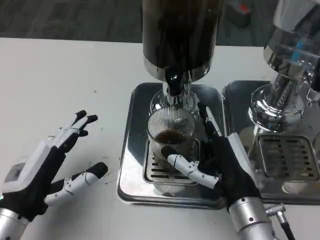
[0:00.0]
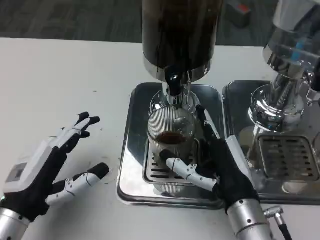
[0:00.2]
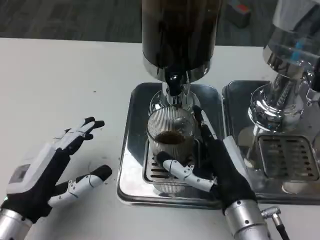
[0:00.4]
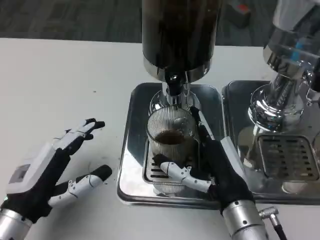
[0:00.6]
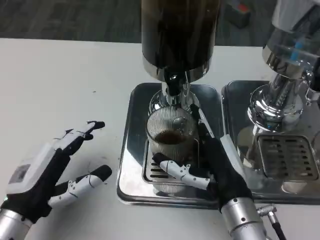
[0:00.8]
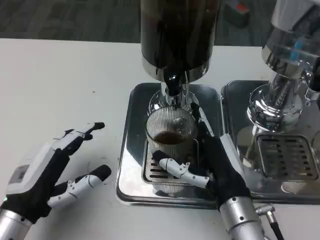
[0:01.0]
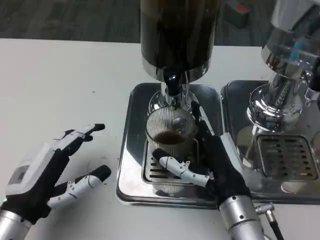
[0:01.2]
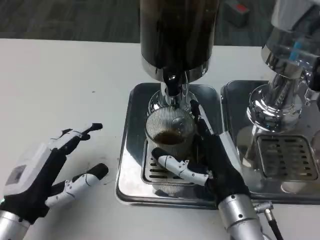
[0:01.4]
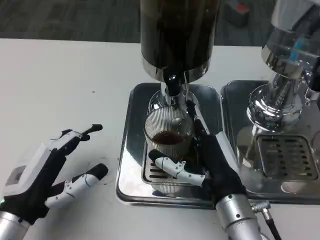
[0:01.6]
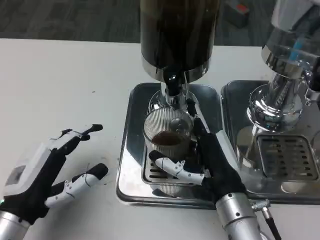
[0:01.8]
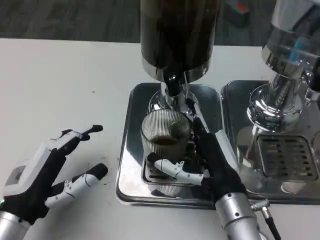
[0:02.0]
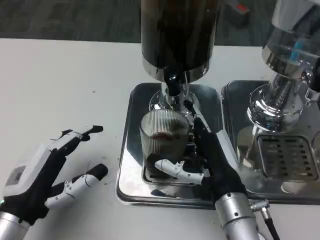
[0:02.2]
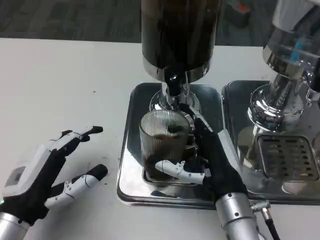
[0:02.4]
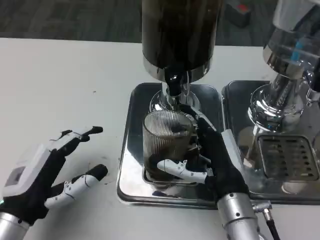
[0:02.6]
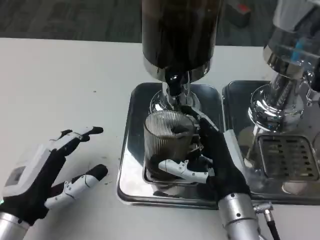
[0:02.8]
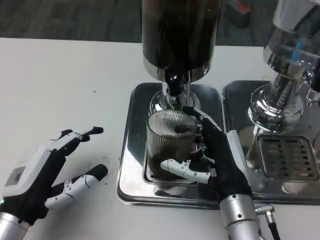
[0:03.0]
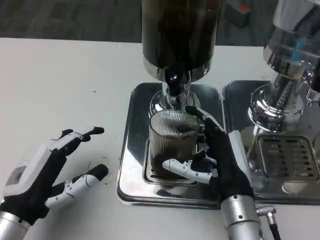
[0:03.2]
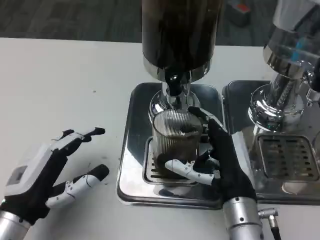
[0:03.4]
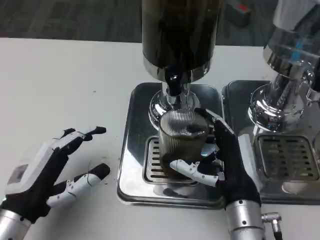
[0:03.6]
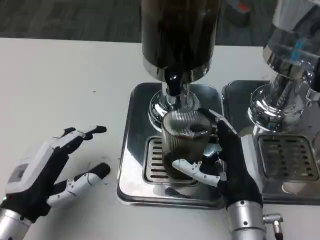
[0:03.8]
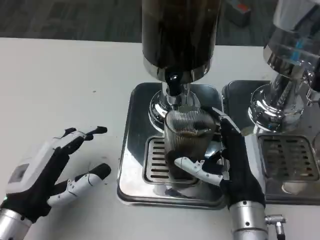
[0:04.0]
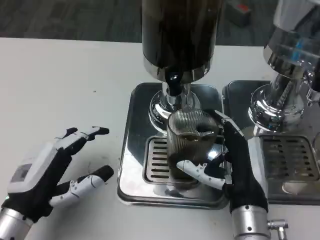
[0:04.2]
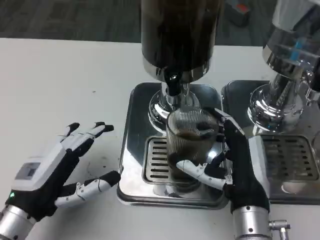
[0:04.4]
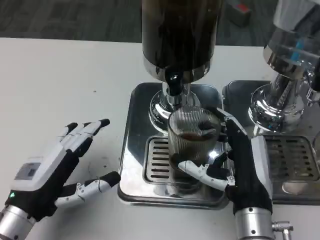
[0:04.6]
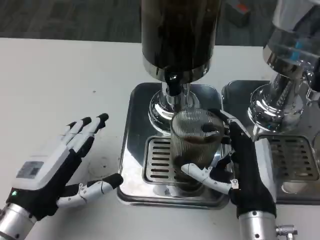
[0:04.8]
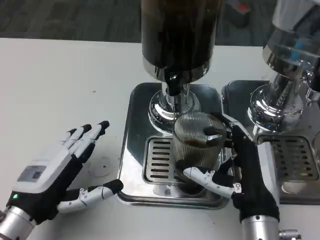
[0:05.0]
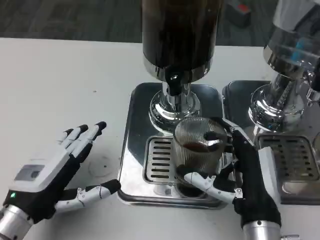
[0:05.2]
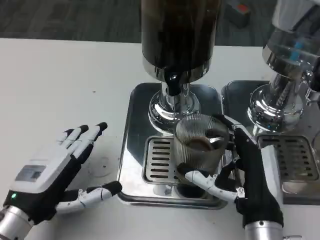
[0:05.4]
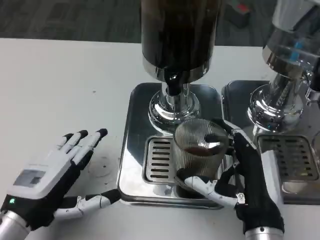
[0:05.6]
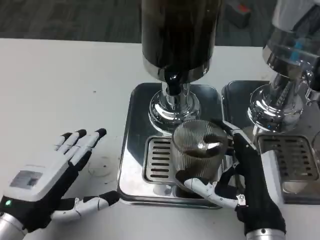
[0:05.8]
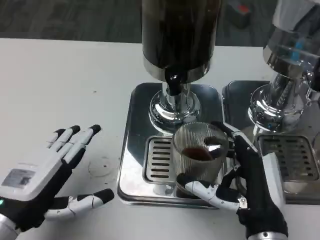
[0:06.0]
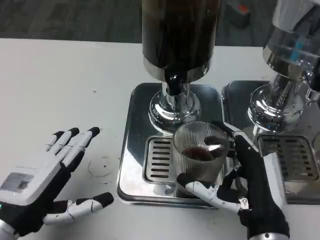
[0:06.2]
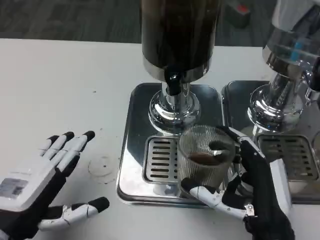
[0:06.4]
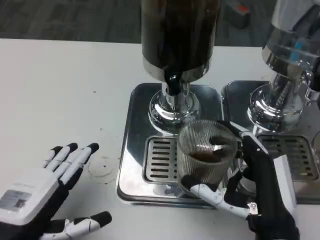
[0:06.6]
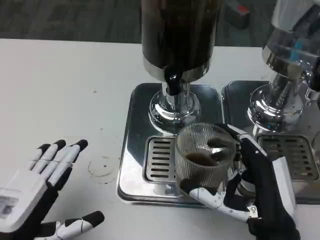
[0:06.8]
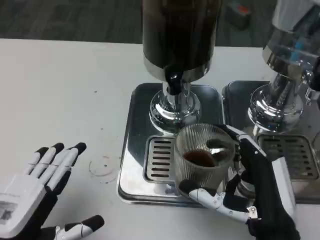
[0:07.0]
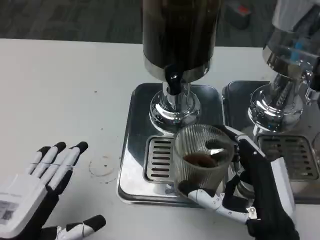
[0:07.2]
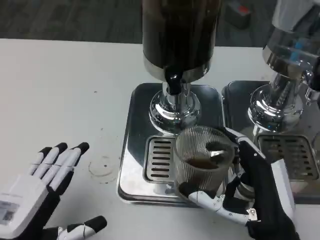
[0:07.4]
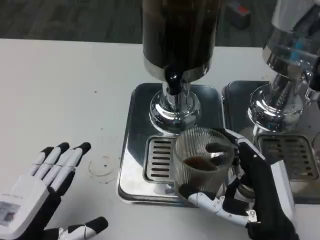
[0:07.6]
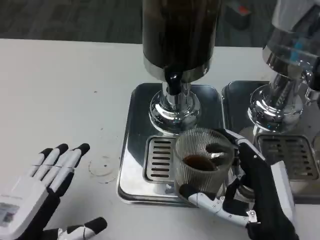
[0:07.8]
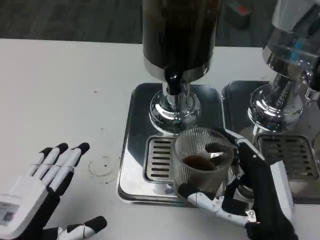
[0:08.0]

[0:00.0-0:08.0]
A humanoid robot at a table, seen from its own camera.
Task of the whole recording: Grasp the cup under the faucet to collect the drink, then remove the cup.
0:00.0 to 0:03.2: The hands stay close to where they were, moving slightly.
0:06.4 to 0:08.0: The hands make only small movements.

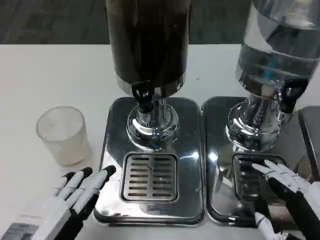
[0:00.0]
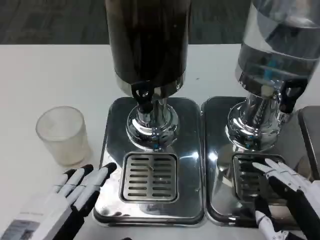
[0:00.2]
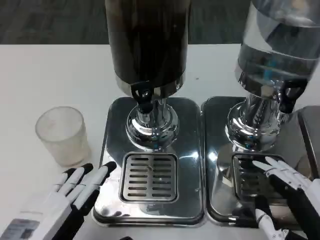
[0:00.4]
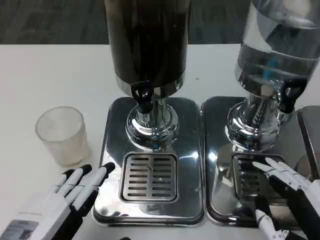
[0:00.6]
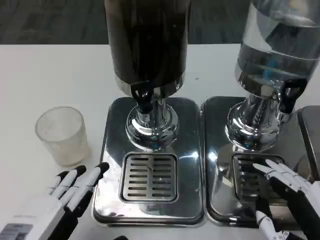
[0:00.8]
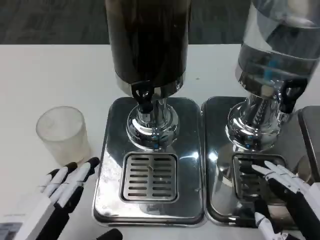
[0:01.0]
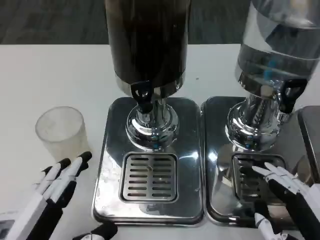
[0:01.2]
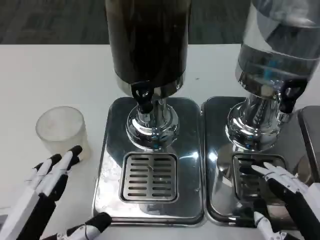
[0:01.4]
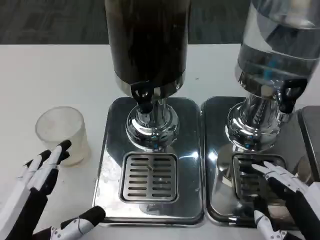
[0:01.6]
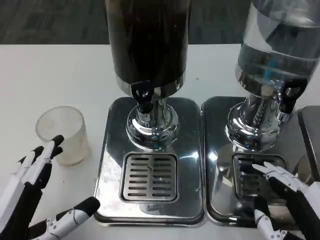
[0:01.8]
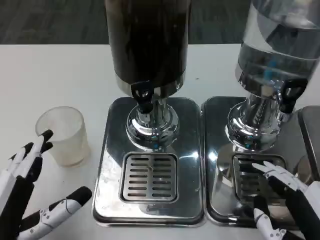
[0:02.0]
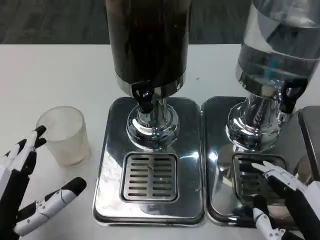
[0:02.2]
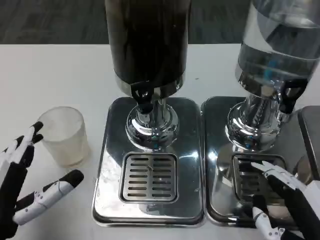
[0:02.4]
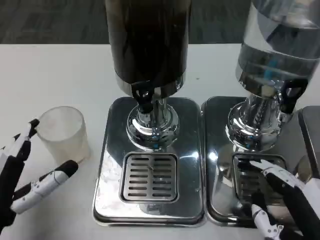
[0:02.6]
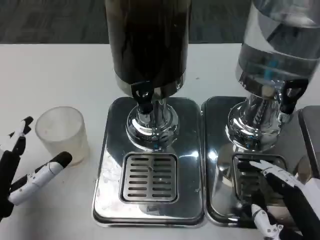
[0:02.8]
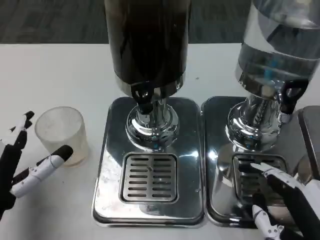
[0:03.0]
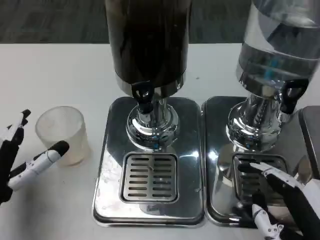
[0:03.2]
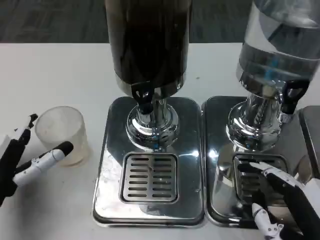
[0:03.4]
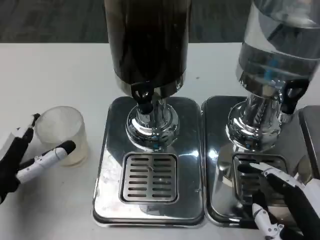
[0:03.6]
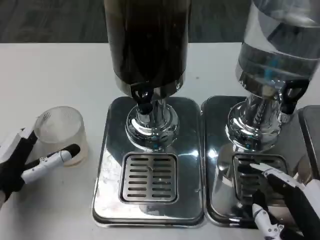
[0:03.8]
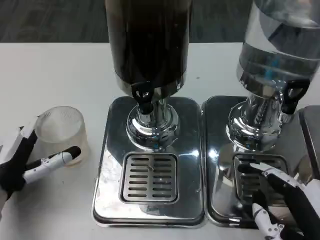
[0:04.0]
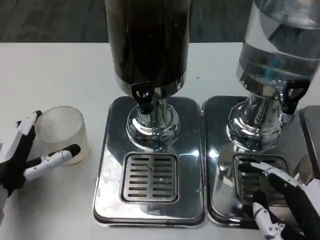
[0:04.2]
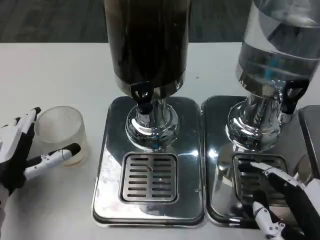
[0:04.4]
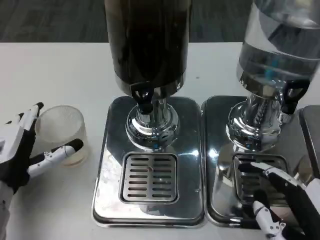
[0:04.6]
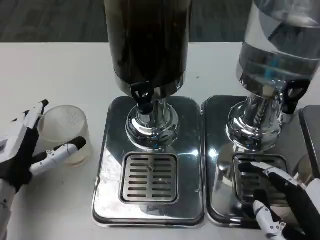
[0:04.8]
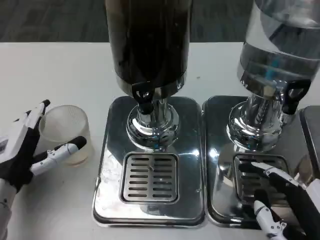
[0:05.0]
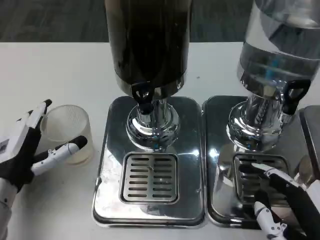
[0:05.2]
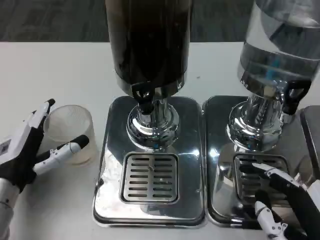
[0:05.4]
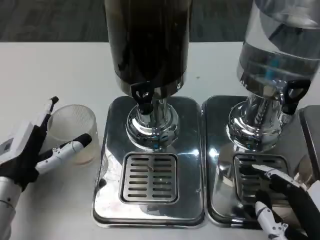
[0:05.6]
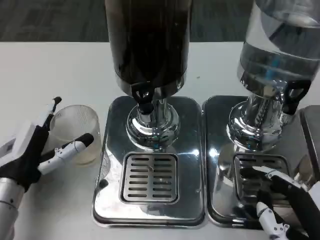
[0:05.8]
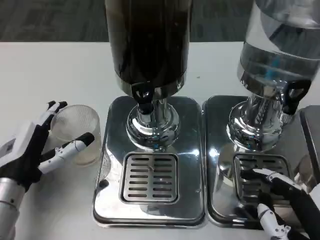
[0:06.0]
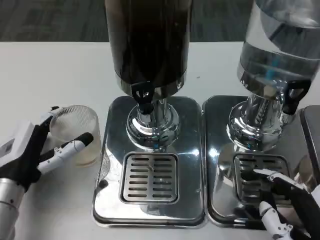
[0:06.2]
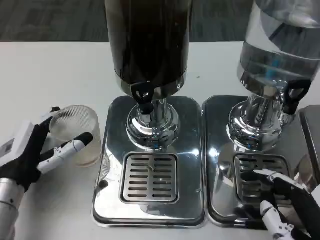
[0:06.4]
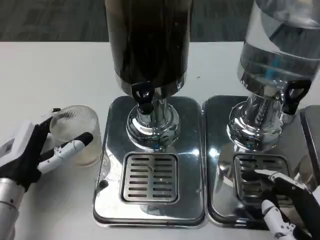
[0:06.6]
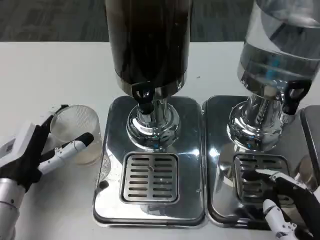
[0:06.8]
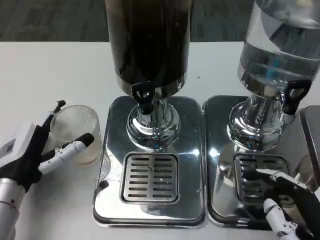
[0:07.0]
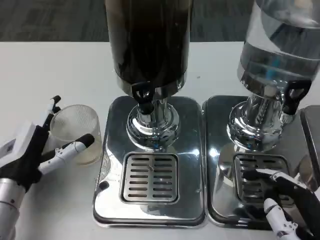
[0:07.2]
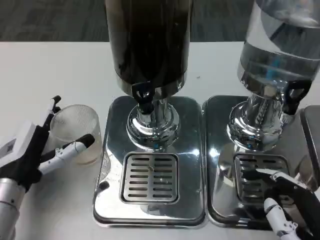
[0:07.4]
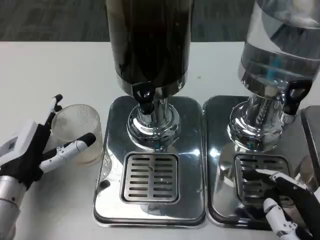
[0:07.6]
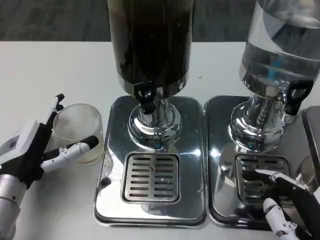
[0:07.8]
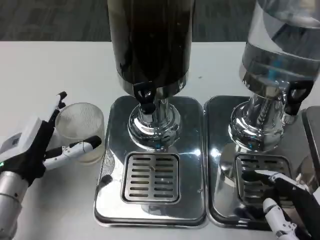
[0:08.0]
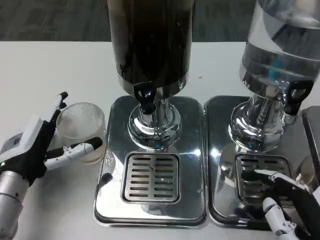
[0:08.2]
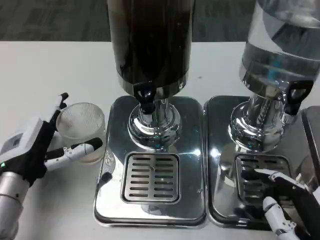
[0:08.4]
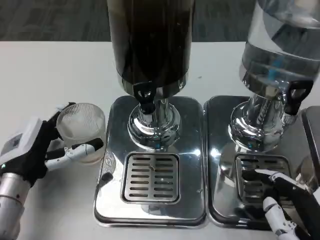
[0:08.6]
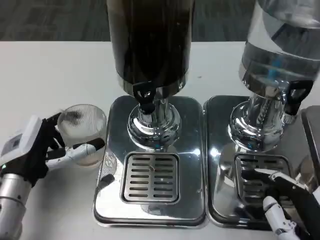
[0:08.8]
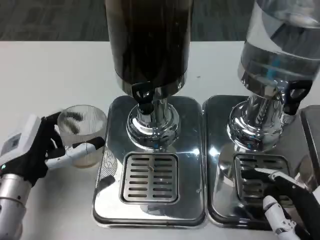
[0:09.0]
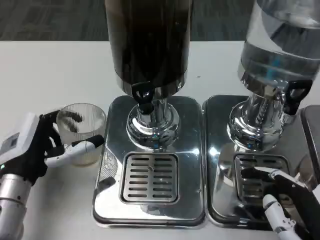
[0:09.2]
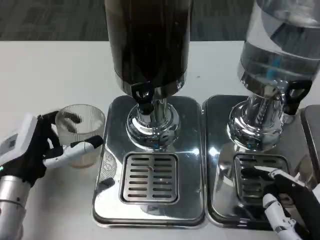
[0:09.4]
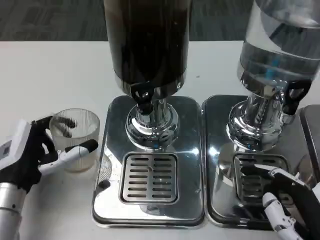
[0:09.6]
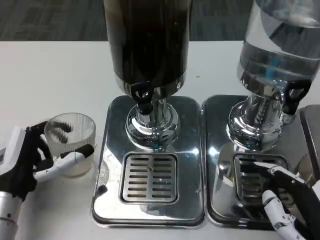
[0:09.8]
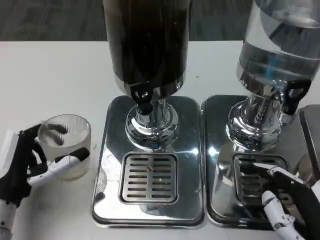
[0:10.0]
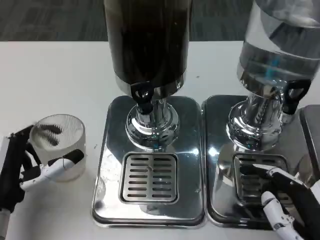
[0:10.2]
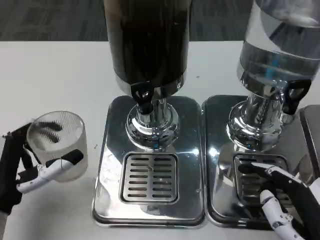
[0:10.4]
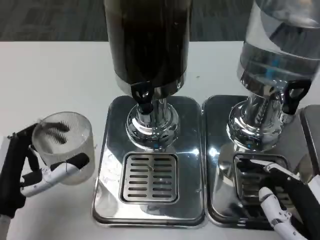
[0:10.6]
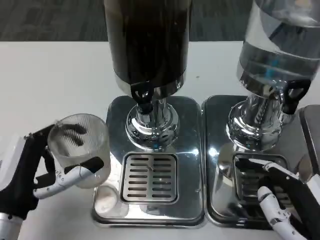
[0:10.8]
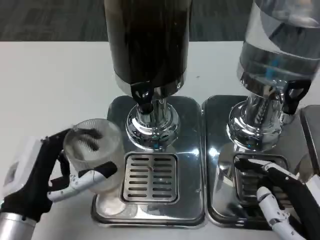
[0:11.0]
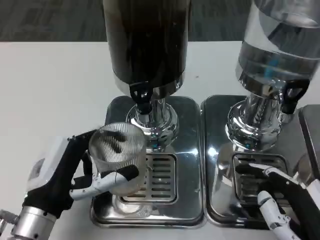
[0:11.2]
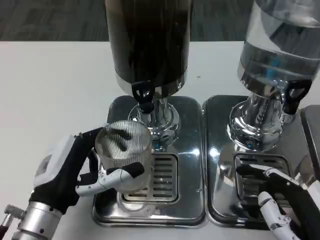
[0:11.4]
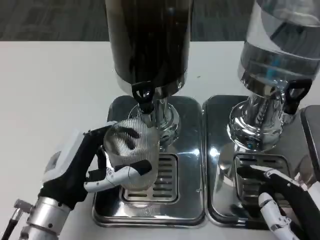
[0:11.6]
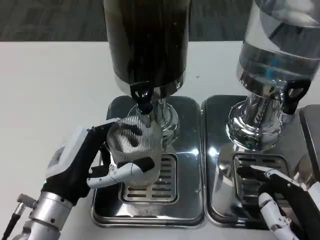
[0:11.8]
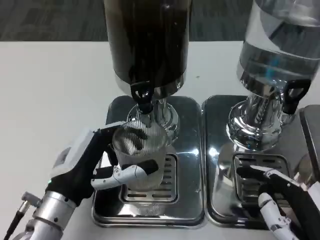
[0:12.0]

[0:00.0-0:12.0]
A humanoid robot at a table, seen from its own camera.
Task of the whole recording: Grasp the cup under the faucet to collect the drink, then remove the cup.
0:00.0 to 0:01.6: The hands make only small movements.
0:01.6 to 0:03.0: The left hand goes some 10 cm forward.
0:03.0 to 0:04.4: The left hand goes about 5 cm forward.
0:04.4 to 0:06.0: The hands stay close to where they were, moving slightly.
0:06.0 to 0:07.6: Neither hand changes place.
0:07.6 to 0:09.0: The hands move only a little.
0:09.0 to 0:10.4: The left hand moves backward, about 5 cm.
0:10.4 to 0:12.0: The left hand travels to the right by roughly 5 cm.

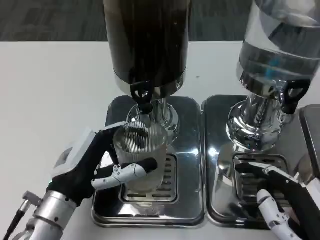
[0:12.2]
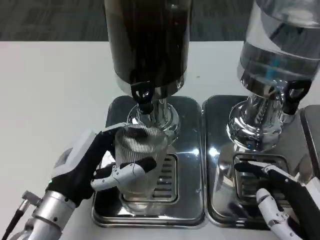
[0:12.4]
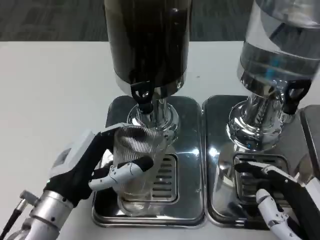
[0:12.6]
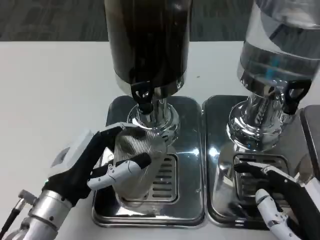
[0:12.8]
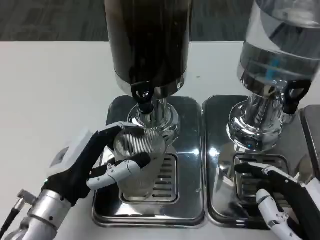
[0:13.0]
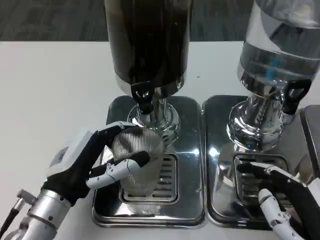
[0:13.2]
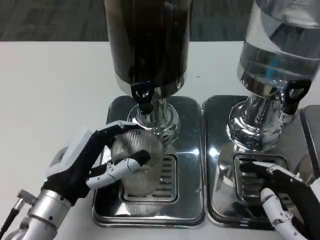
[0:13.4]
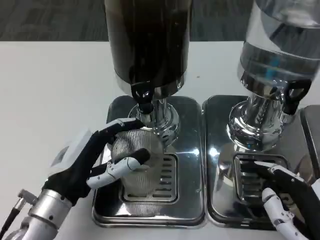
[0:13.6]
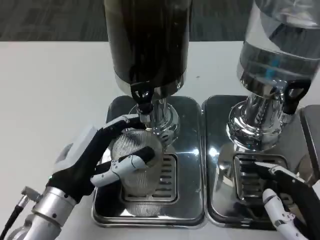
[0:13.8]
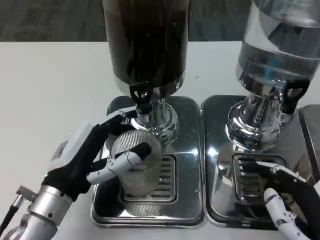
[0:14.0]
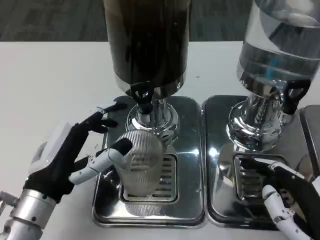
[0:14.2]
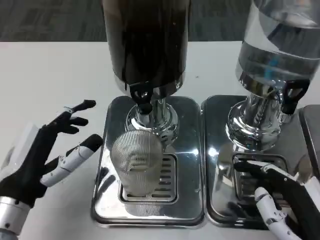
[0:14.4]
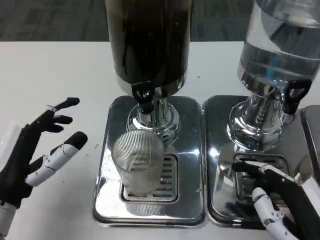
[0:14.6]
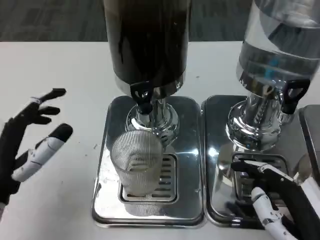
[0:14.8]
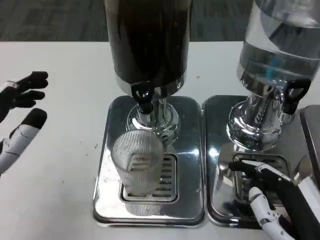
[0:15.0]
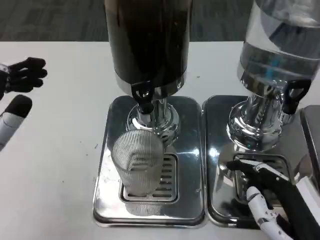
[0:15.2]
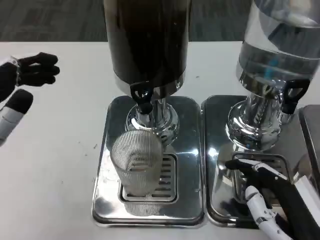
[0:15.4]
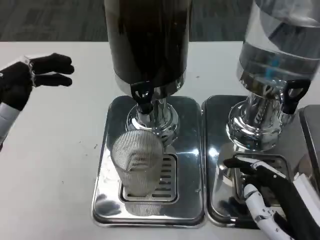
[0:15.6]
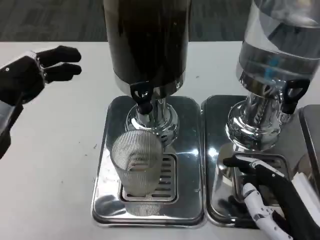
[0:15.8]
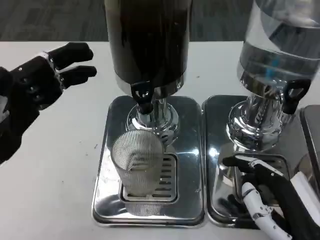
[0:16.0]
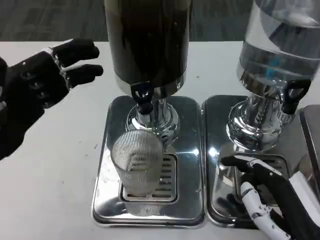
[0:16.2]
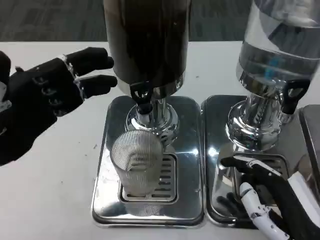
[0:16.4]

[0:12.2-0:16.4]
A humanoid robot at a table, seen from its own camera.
Task of the whole recording: Grasp the cup under the faucet to collect the drink, then remove the cup.
0:12.2 to 0:13.6: Neither hand changes place.
0:13.6 to 0:15.0: The left hand goes some 10 cm to the left and upward.
0:15.0 to 0:16.4: The left hand shifts some 5 cm upward.
